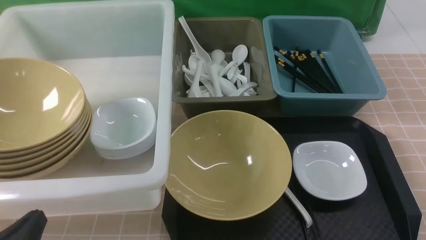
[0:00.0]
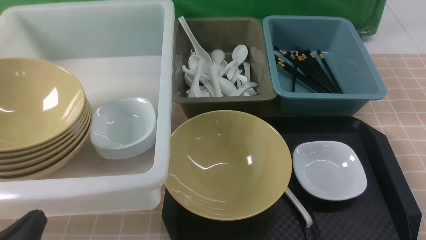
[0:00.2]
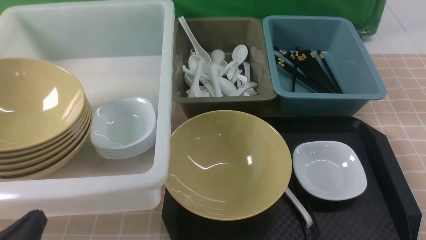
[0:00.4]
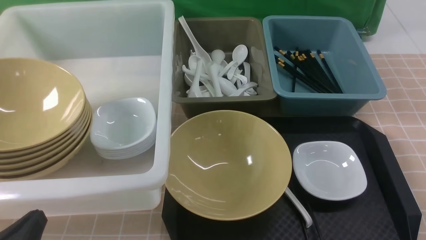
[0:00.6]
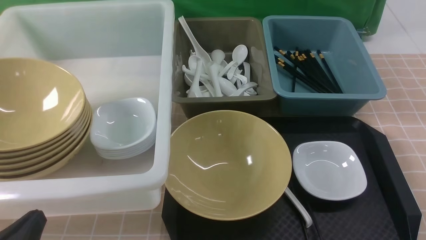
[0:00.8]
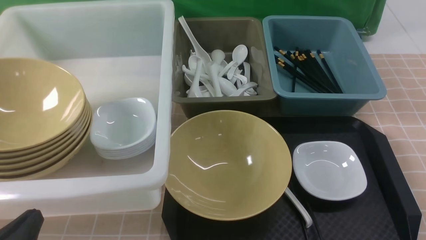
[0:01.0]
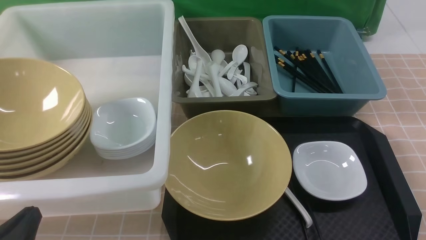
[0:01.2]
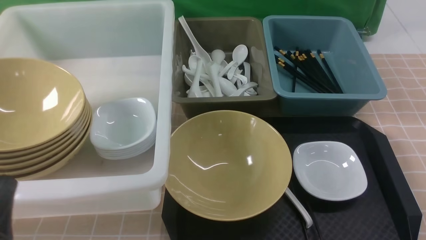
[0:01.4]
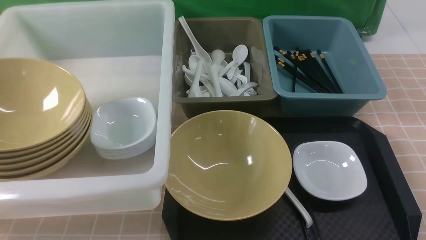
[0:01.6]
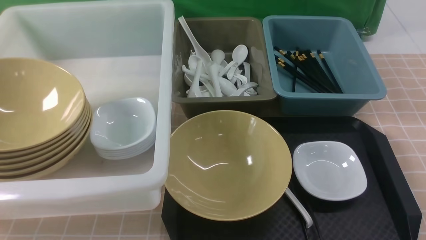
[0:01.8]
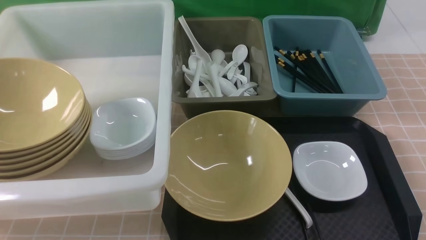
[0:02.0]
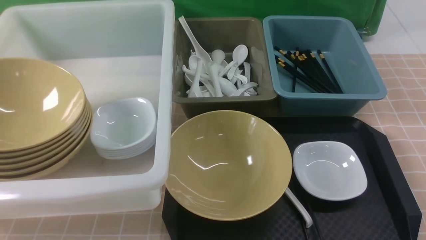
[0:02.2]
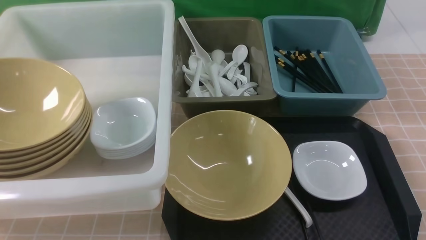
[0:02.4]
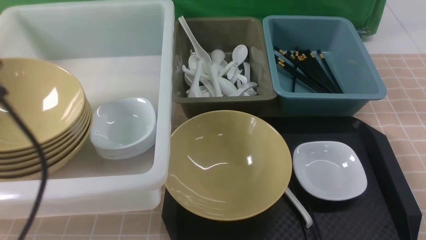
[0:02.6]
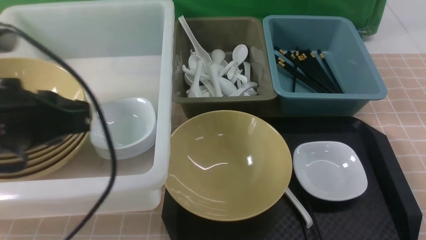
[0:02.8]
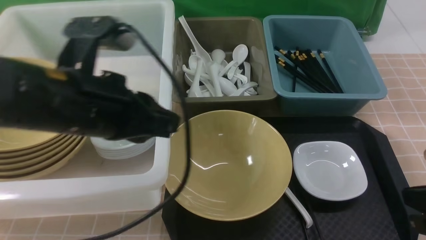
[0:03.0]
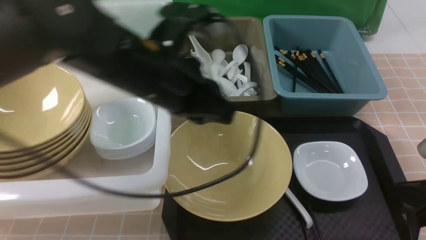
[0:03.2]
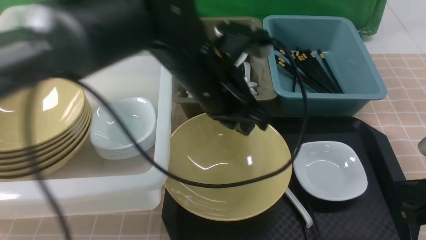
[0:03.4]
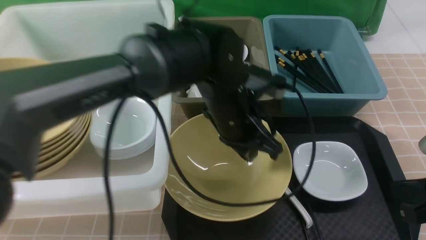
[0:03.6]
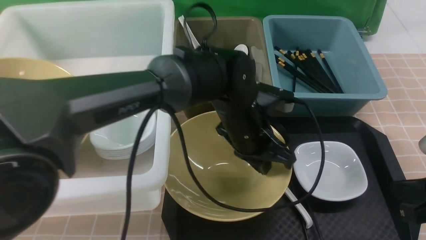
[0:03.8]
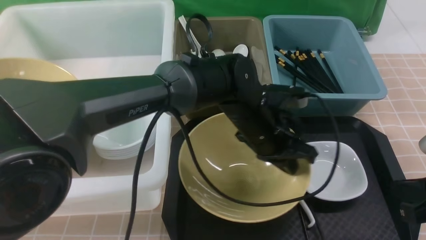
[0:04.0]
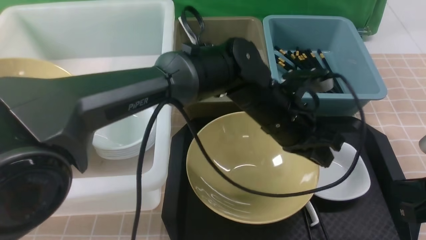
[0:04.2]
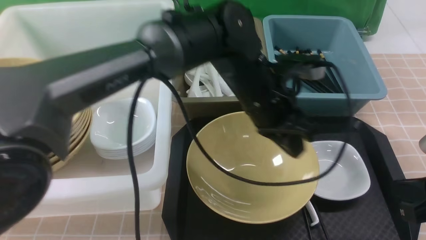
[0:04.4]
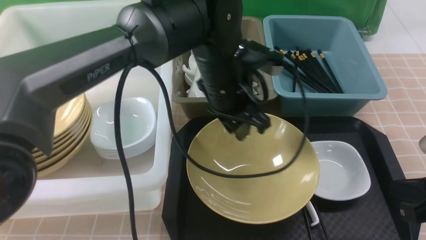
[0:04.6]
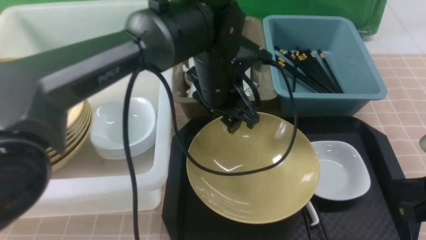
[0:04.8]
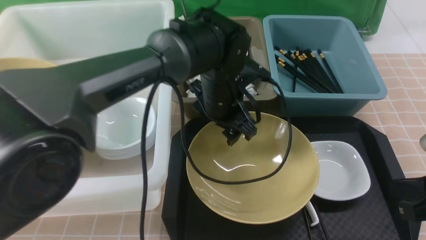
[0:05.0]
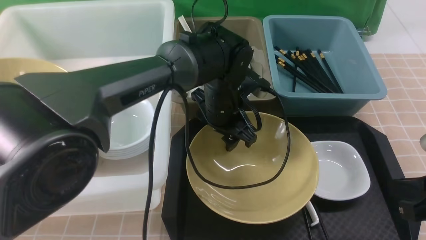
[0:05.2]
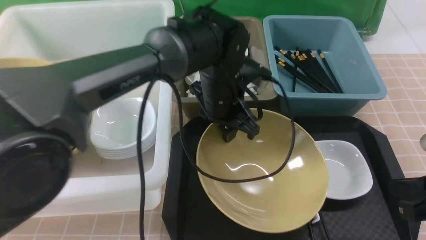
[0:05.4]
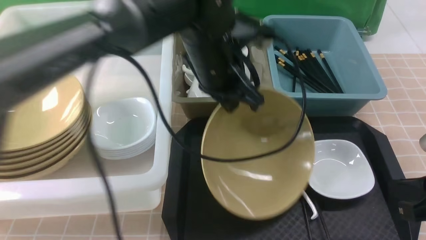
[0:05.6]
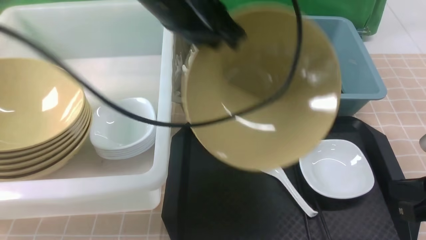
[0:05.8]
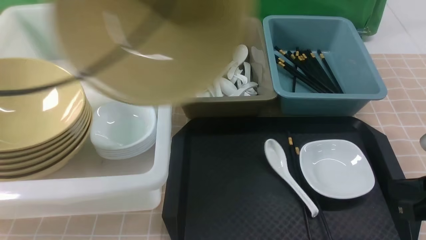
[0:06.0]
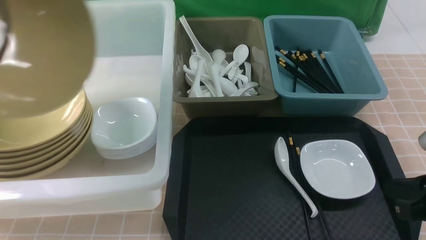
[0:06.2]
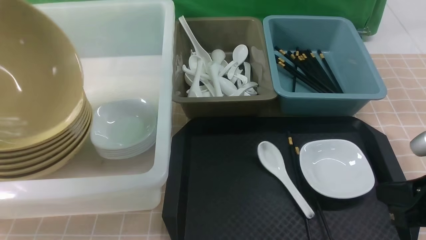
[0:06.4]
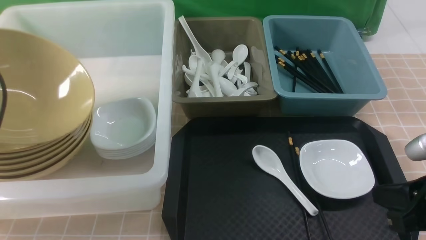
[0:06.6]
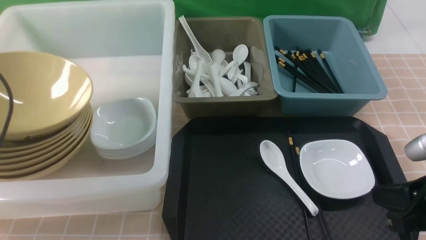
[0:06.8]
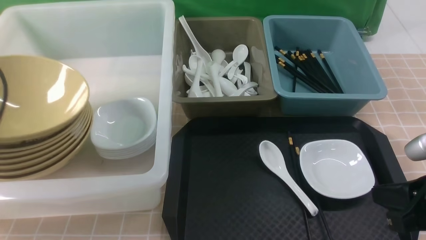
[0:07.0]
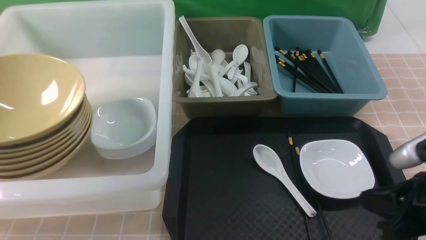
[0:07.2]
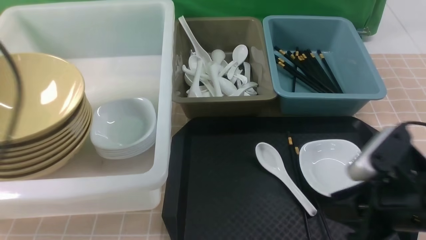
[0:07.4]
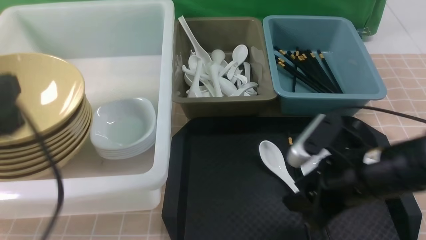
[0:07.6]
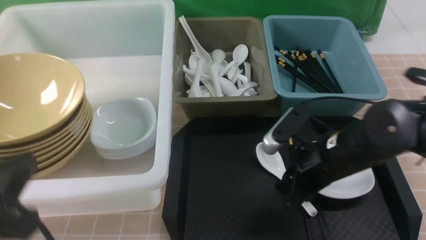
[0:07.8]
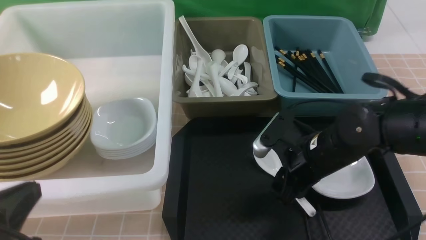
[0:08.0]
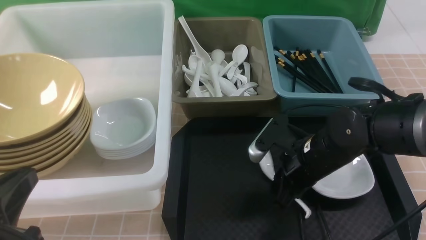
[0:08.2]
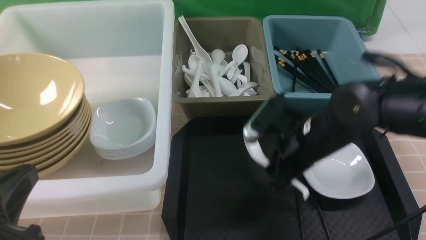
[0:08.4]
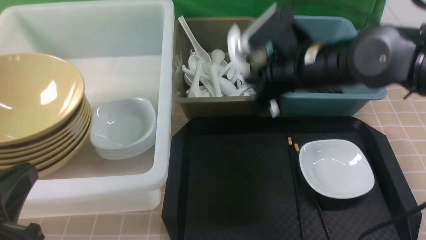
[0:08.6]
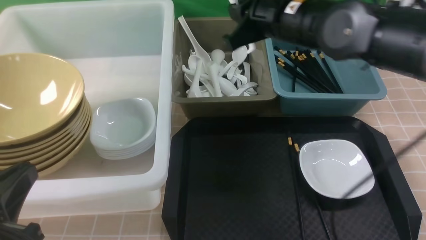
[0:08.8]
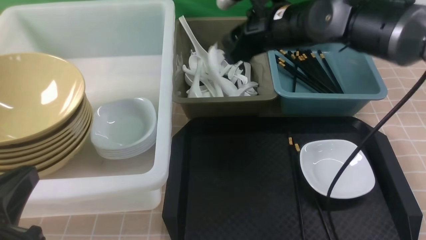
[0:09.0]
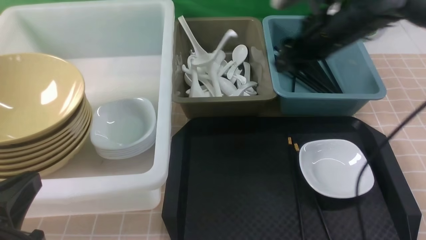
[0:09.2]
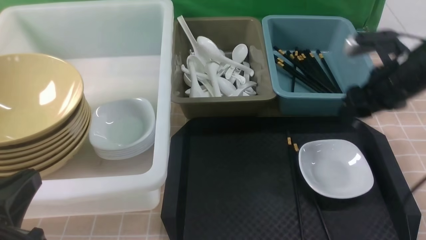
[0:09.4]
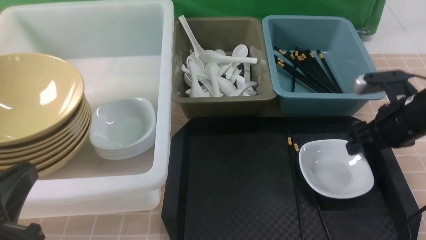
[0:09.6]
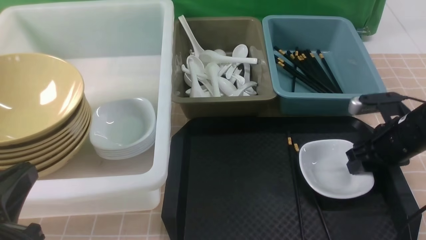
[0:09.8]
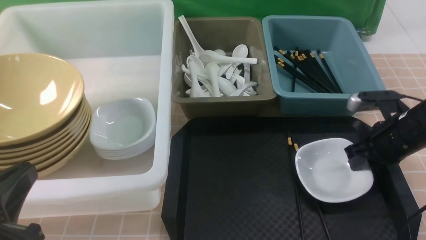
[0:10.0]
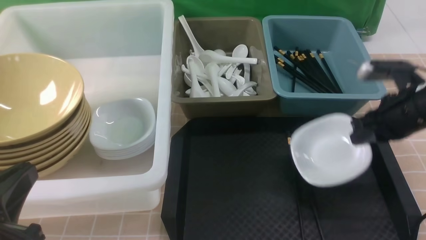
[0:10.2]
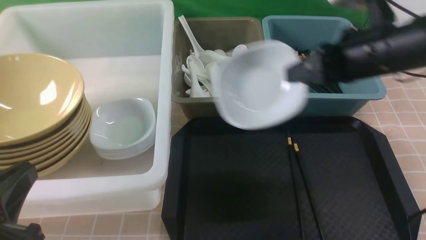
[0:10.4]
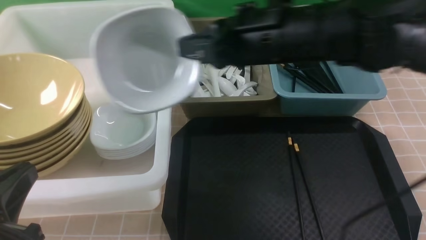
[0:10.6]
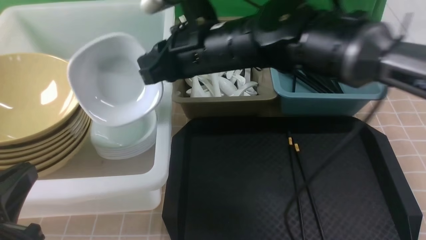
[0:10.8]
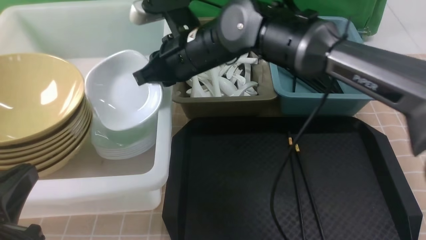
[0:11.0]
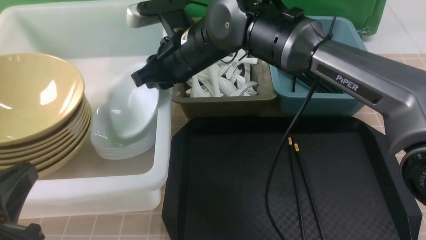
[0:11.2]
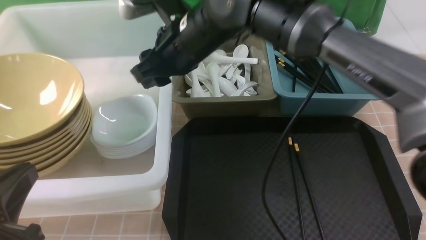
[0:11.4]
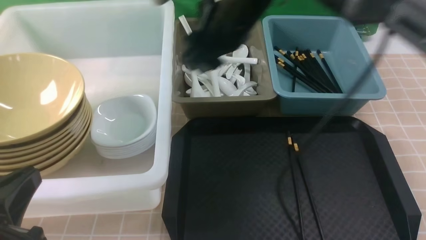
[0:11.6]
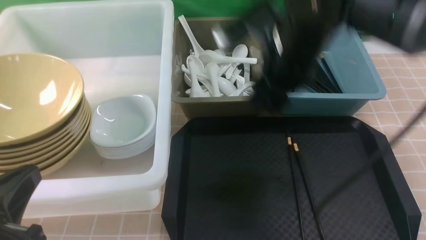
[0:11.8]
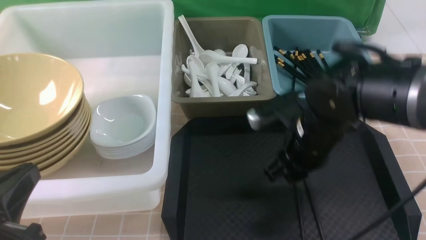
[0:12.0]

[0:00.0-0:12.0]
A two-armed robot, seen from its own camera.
Task of the whole recording: on brown table put chopsticks spoon bowls plates into blue grey white boxes.
Step, 0:00.0 to 0:05.4: use the left arm to grab the yellow noodle bowl on the left.
Step, 0:05.6 to 0:07.2: use the left arm to put the noodle bowl into the large storage box on the left.
Step, 0:07.4 to 0:08.2: use the right arm to grab the soup spoon in the middle.
Step, 0:08.4 to 0:09.2: use the right arm to put the soup spoon into the small storage box in the middle.
Step, 0:09.4 to 0:10.0: use the right arm to grab the plate.
Step, 0:10.2 to 0:11.2: use the right arm to put the plate into the large storage box on the left.
0:00.0 to 0:01.6: The left gripper is displaced upward by some 5 cm.
0:01.6 to 0:03.0: The left gripper goes roughly 25 cm forward, to the right and upward. Meanwhile the right gripper shifts approximately 10 cm forward, and closes its fingers.
0:03.0 to 0:04.4: The left gripper moves to the right, forward and downward, approximately 20 cm.
0:04.4 to 0:06.0: The left gripper goes some 35 cm to the left and upward, and opens, then closes once more.
0:06.0 to 0:07.6: The left gripper shifts approximately 15 cm downward and backward, moves approximately 15 cm to the left and comes back, and opens its fingers; the right gripper travels to the left and forward by approximately 10 cm, and opens.
0:07.6 to 0:09.0: The left gripper shifts roughly 5 cm downward, and closes, while the right gripper moves forward and upward, approximately 20 cm, and closes, then reopens.
0:09.0 to 0:10.4: The right gripper moves backward, roughly 10 cm, moves about 15 cm to the right and comes back, and closes up.
0:10.4 to 0:12.0: The right gripper moves downward, about 10 cm, reaches roughly 20 cm to the left, then returns, and opens up.

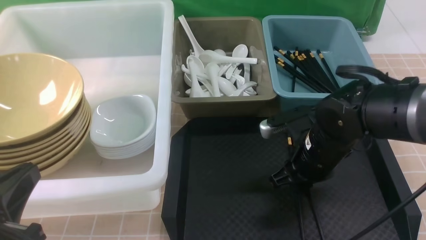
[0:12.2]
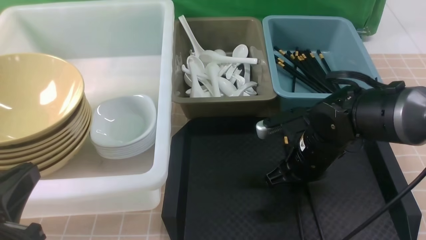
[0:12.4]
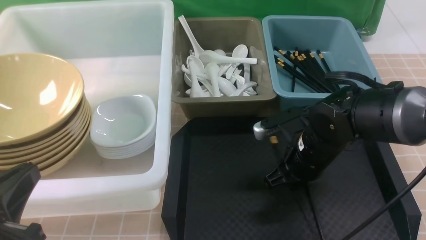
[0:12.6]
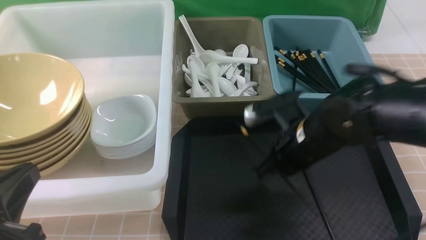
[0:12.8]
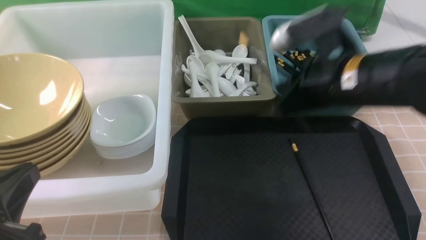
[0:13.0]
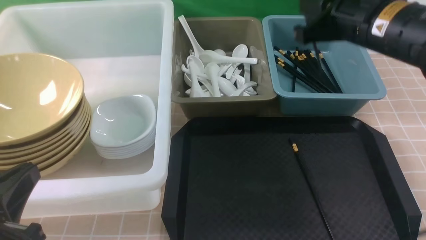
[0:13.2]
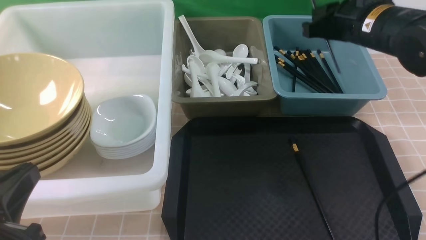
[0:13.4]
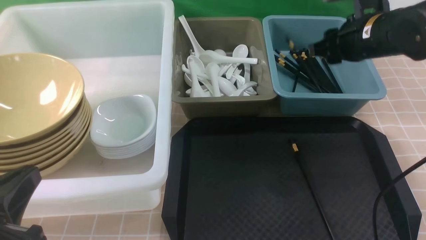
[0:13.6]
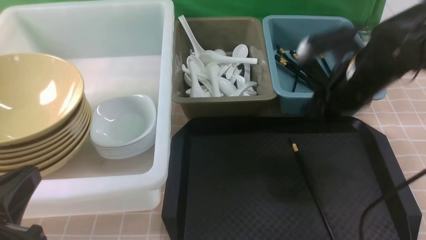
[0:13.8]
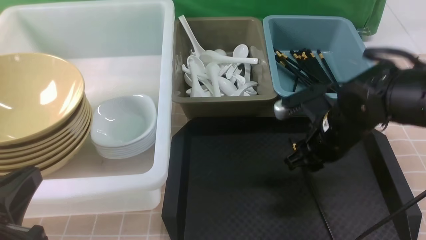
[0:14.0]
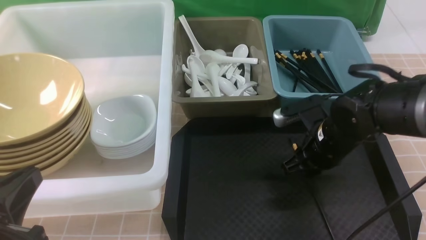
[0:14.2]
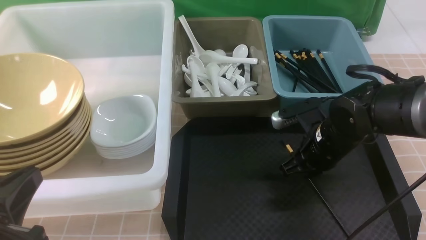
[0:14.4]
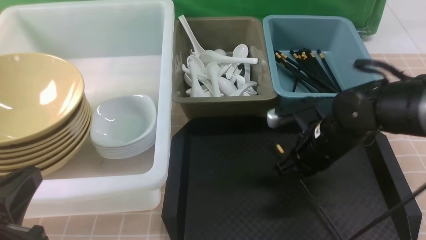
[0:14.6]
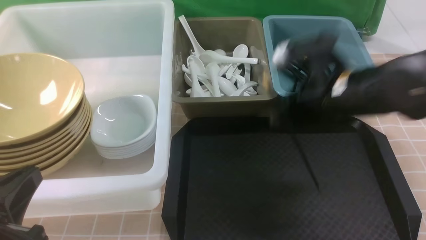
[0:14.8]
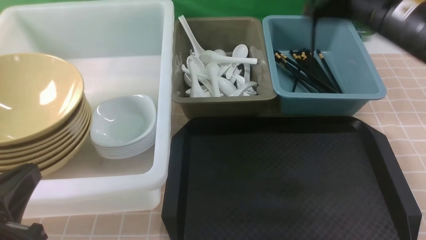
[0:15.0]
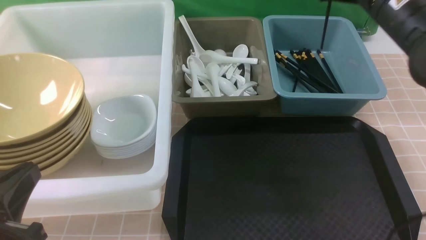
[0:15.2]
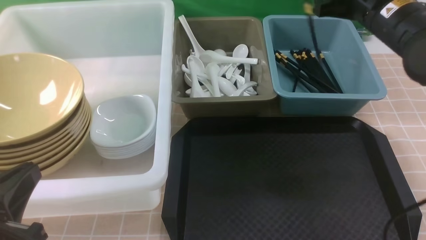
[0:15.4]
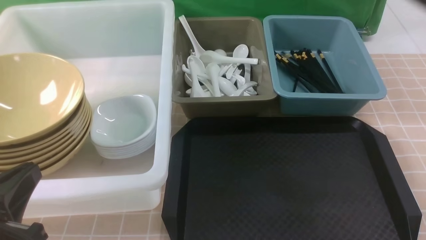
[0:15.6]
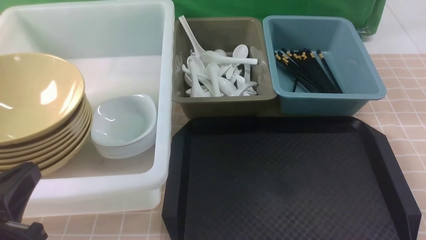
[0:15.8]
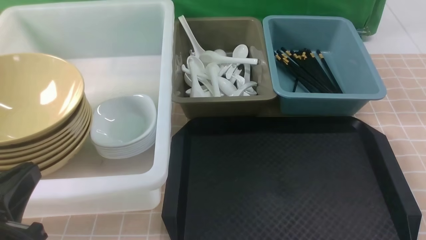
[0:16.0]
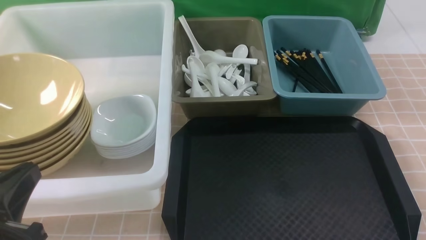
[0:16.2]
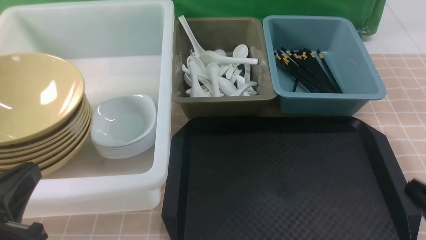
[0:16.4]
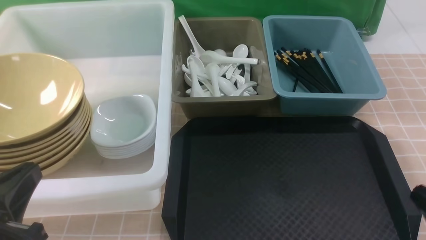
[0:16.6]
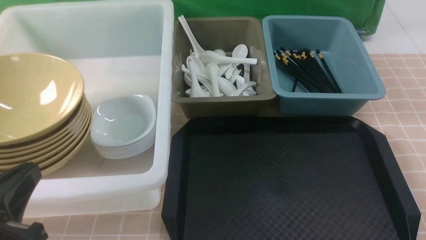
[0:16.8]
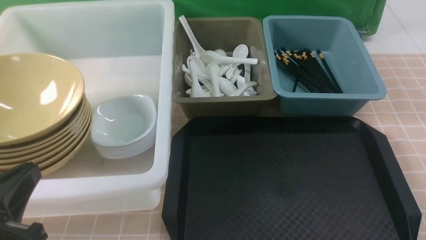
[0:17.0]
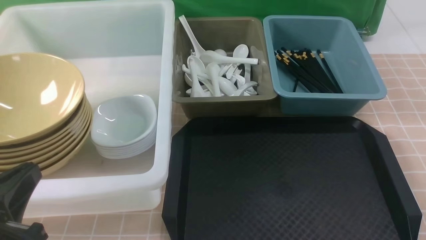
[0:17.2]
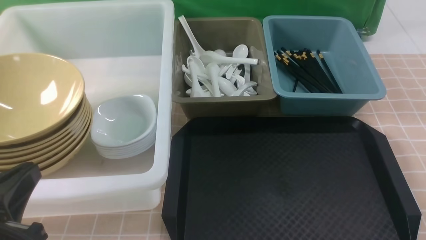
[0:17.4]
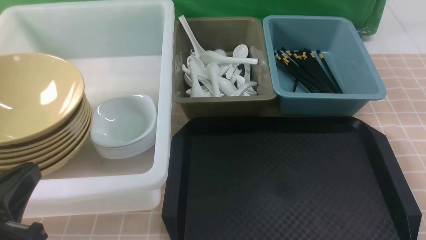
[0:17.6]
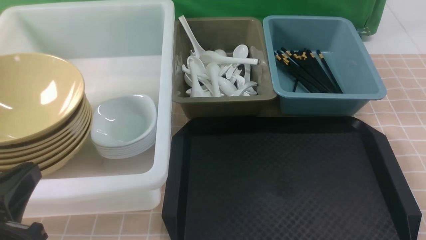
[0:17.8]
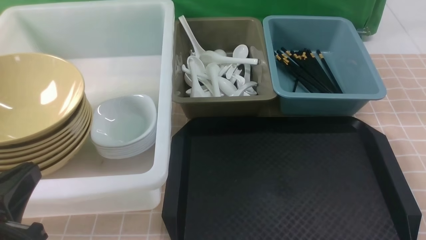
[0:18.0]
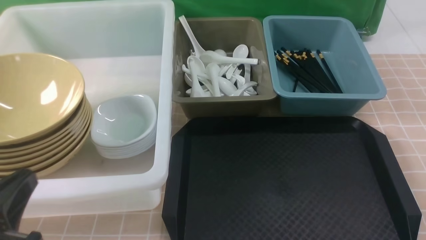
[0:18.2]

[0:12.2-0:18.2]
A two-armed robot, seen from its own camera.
Task of the whole recording: on brown table put chopsticks spoon bowls plates into blue grey white boxes.
Step, 0:12.8 to 0:13.6: use the right arm to put a chopstick into the small storage box on the right.
Step, 0:13.8 to 0:14.6: use the right arm to grab a chopstick.
Step, 0:14.8 to 0:15.6: use the right arm to put a chopstick into the small storage box on the right.
0:12.2 to 0:13.8: The right gripper travels upward and to the right by approximately 10 cm, and closes and opens again.
0:13.8 to 0:15.2: The right gripper moves upward, approximately 10 cm, and closes.
0:15.2 to 0:16.6: The right gripper moves backward and downward, about 30 cm.
